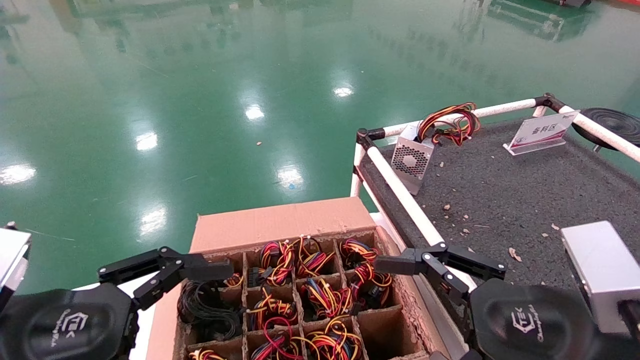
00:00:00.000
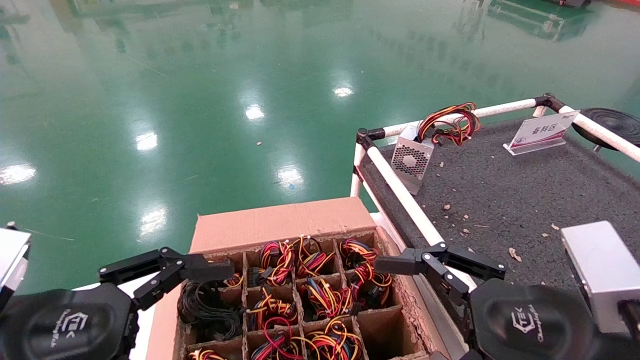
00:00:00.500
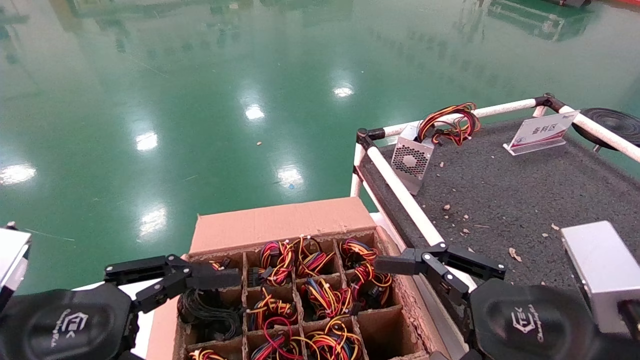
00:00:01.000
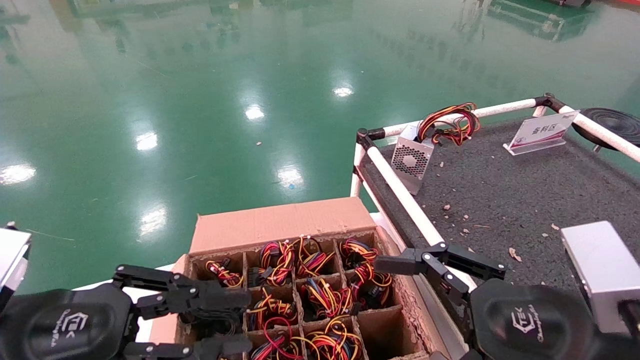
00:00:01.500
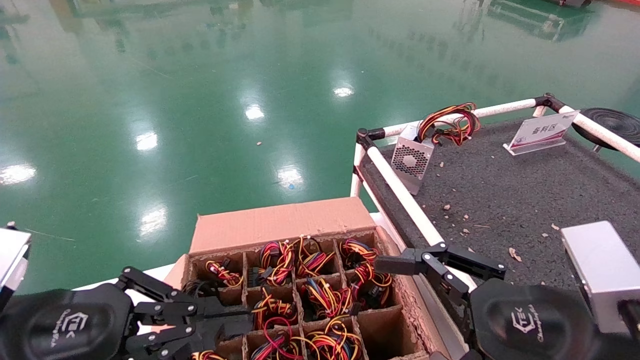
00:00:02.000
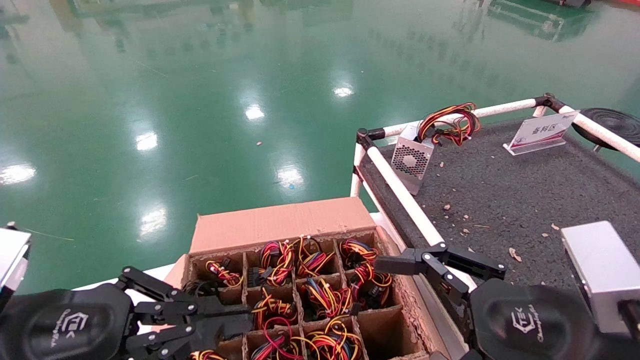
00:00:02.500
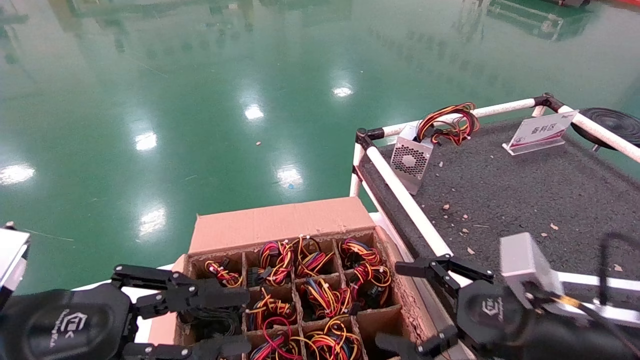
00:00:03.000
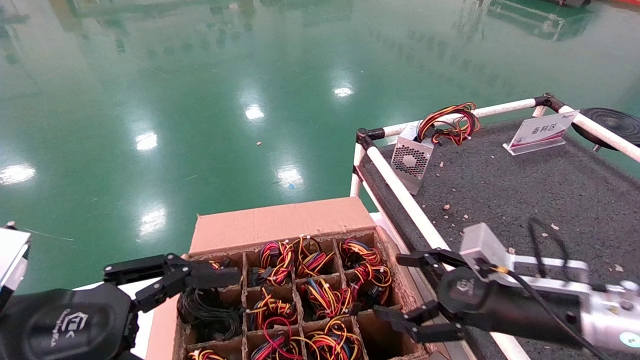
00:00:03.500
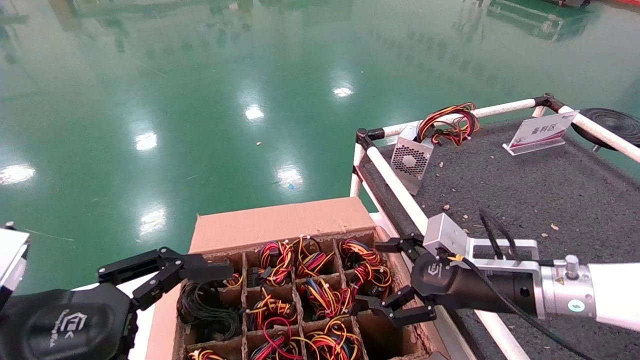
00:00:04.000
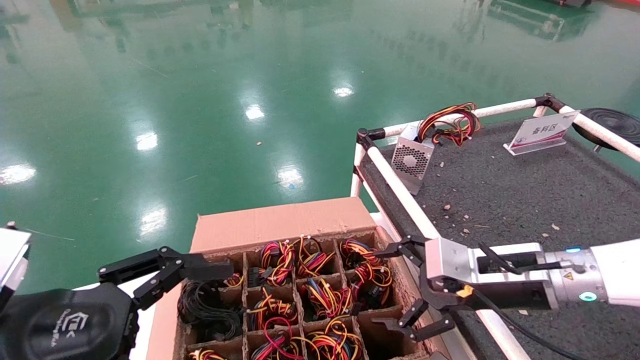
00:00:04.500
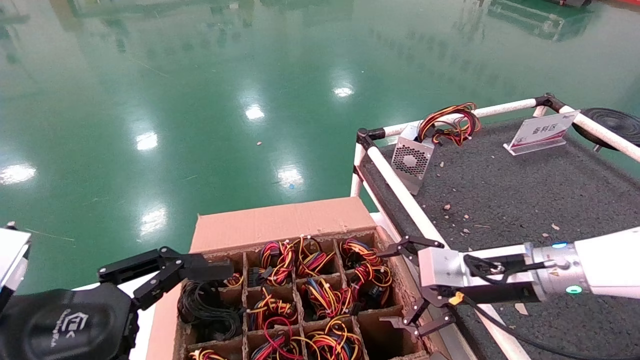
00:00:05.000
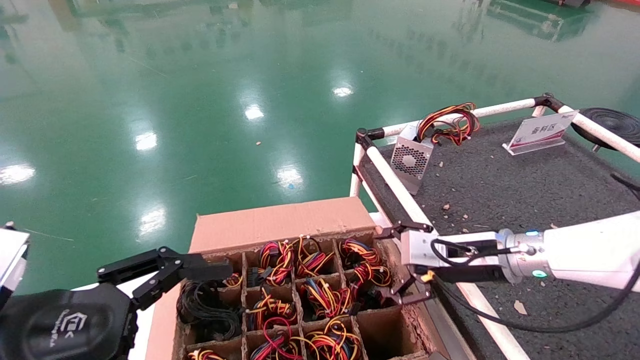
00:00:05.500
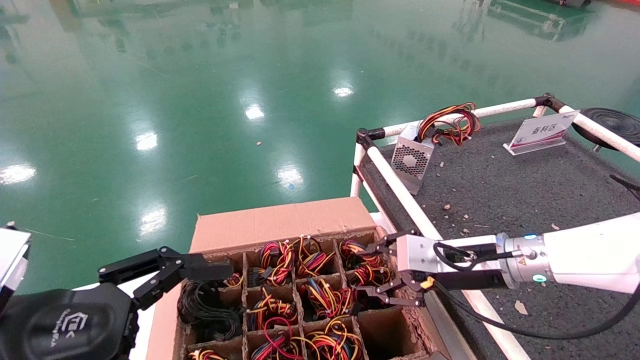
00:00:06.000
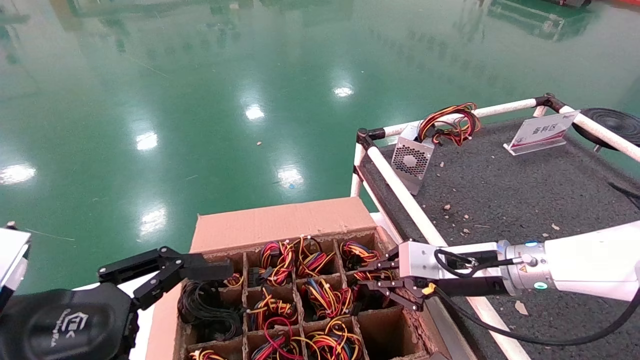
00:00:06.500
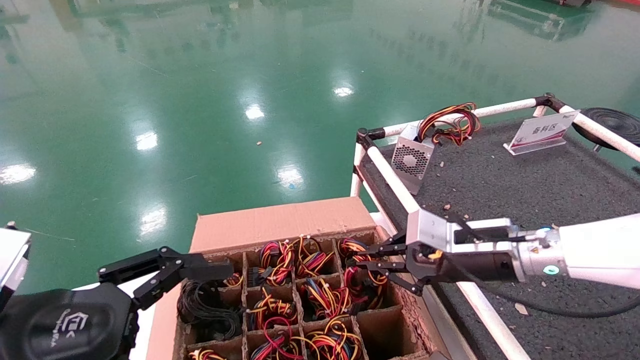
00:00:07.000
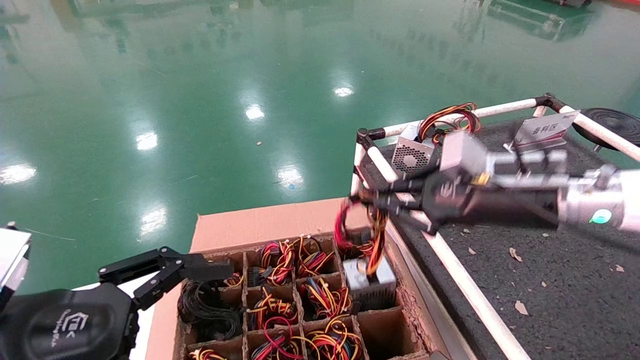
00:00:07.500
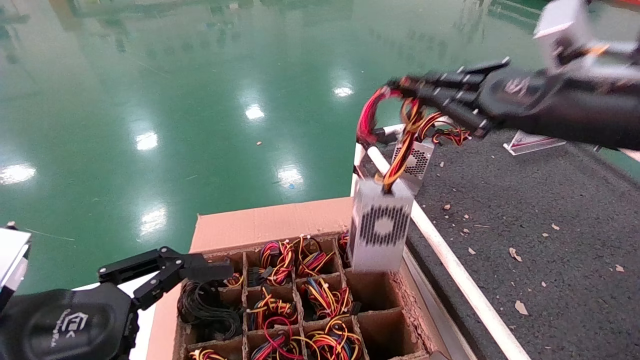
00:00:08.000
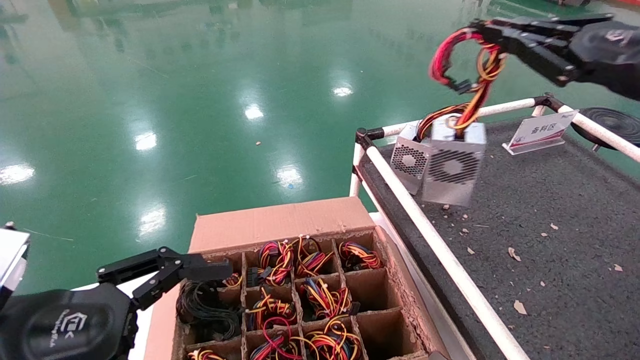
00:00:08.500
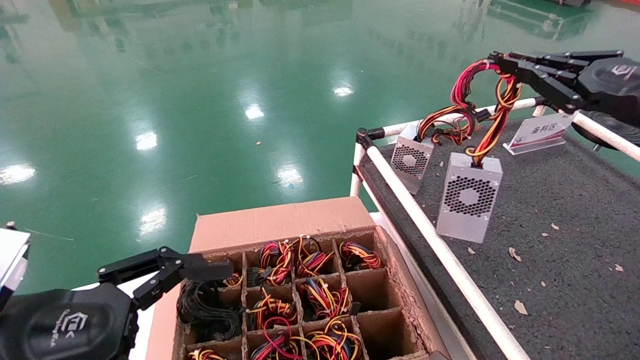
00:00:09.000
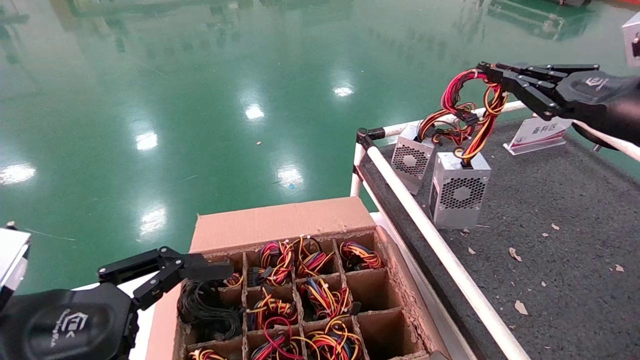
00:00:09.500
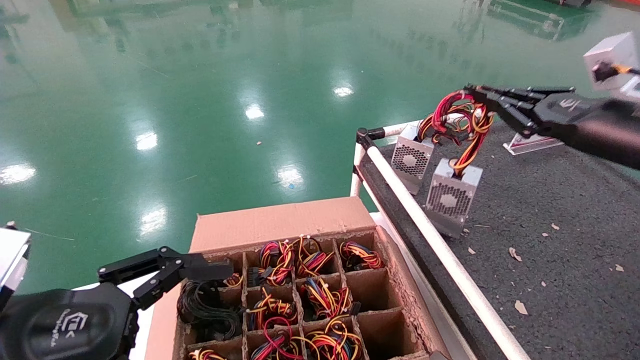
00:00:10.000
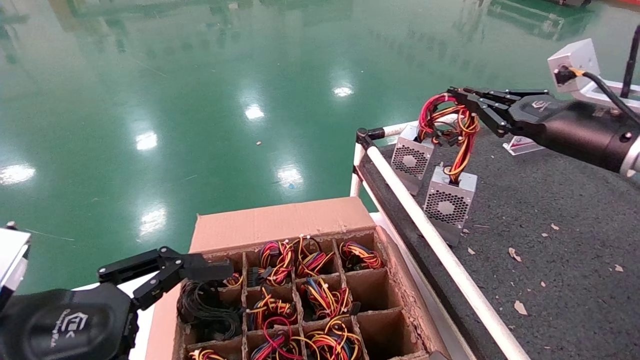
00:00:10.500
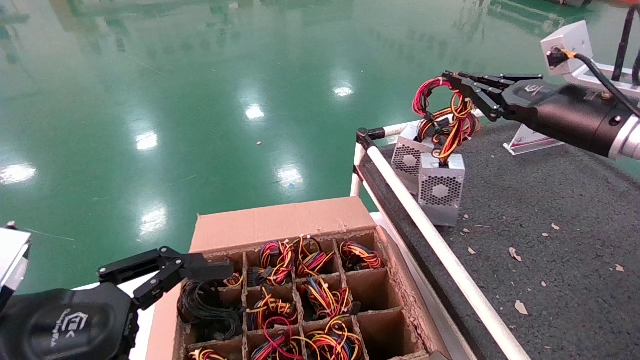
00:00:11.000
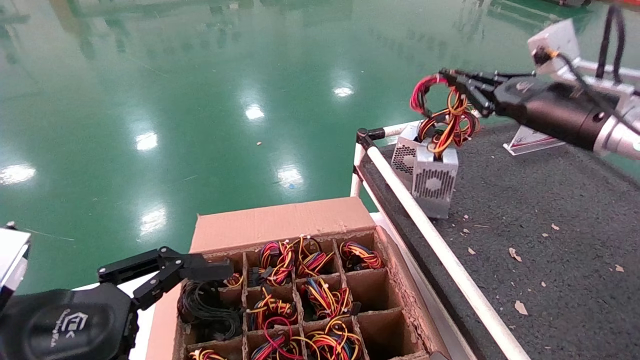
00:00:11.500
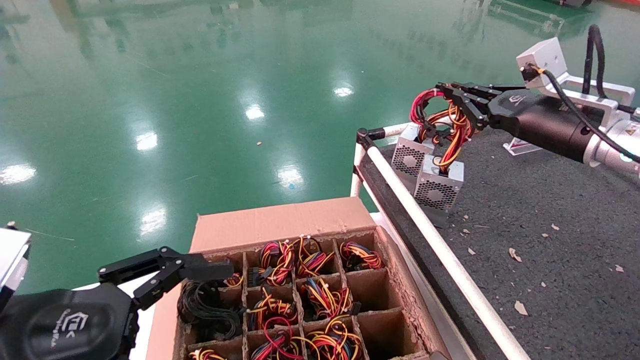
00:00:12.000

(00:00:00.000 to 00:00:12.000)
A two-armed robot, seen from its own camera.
Step, 00:00:03.000 - 00:00:07.000: Grab and lift the power supply from the large box.
00:00:00.000 - 00:00:02.000: The left gripper closes its fingers.
00:00:02.000 - 00:00:04.000: The left gripper opens up, while the right gripper goes approximately 15 cm forward.
00:00:04.000 - 00:00:06.000: The right gripper changes place by approximately 5 cm, and closes its fingers.
00:00:06.000 - 00:00:08.000: The right gripper travels upward and backward by approximately 20 cm, and closes up.
00:00:08.000 - 00:00:10.000: The right gripper moves to the right, roughly 10 cm.
00:00:10.000 - 00:00:12.000: The right gripper shifts approximately 5 cm forward.

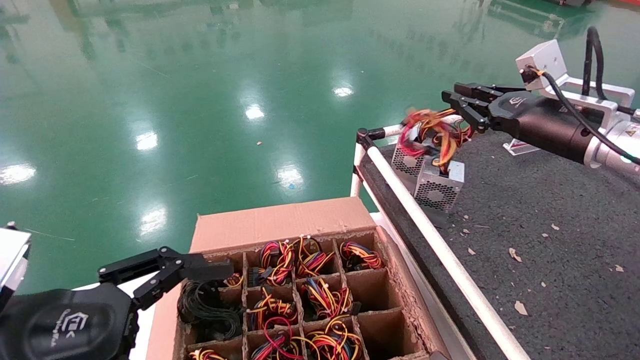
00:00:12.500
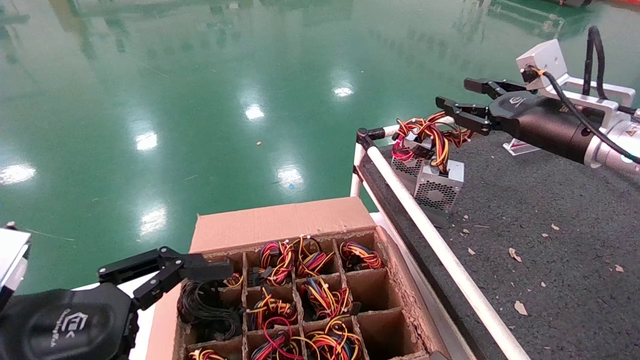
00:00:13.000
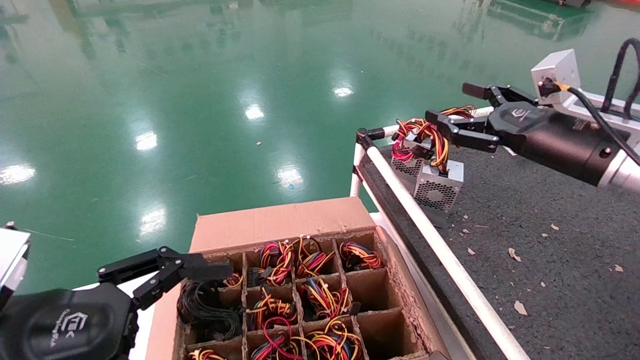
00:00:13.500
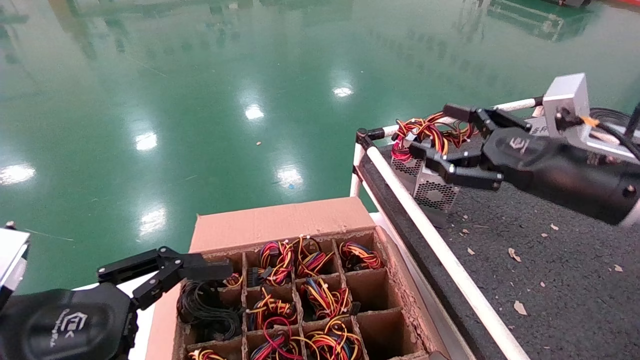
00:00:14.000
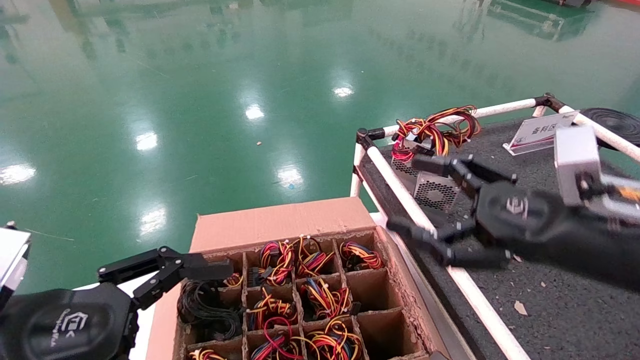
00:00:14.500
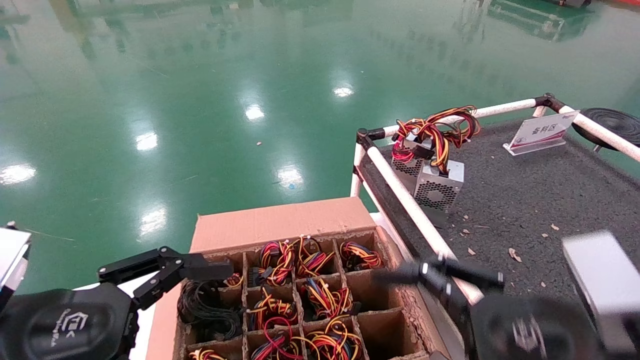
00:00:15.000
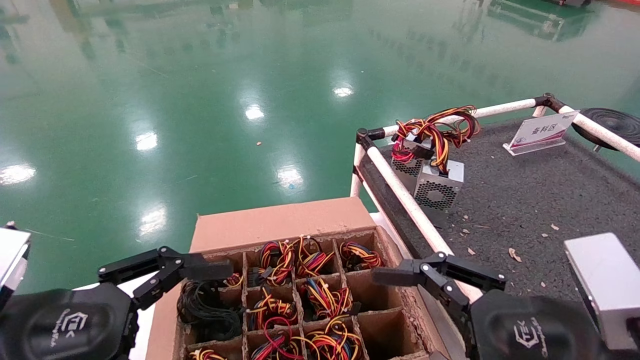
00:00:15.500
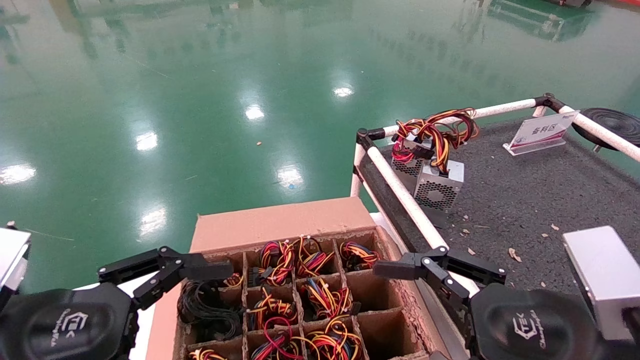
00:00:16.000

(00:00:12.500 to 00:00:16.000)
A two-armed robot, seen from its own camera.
00:00:12.500 - 00:00:14.500: The right gripper travels backward, downward and to the left by some 20 cm, and opens up.
00:00:14.500 - 00:00:16.000: The right gripper goes about 5 cm backward.
